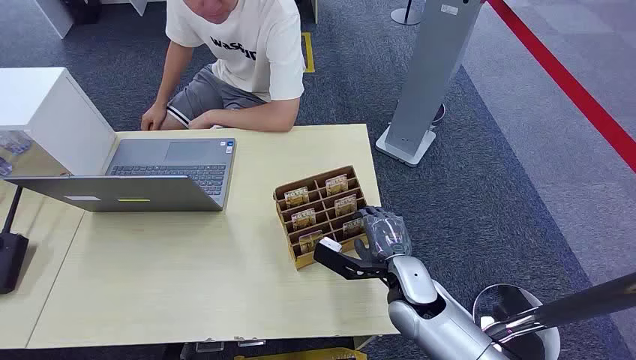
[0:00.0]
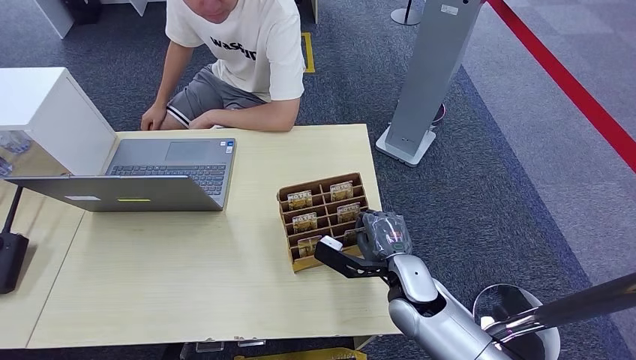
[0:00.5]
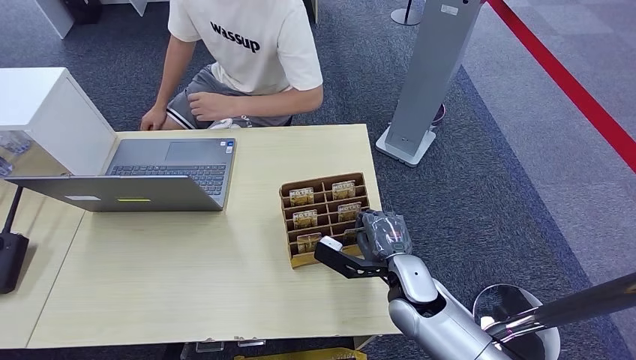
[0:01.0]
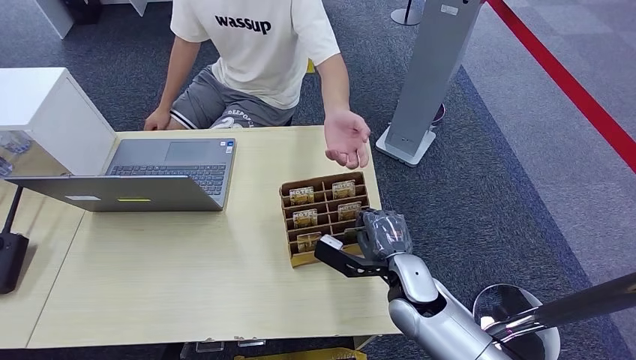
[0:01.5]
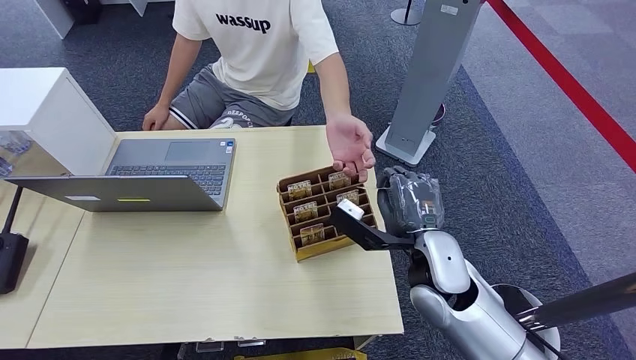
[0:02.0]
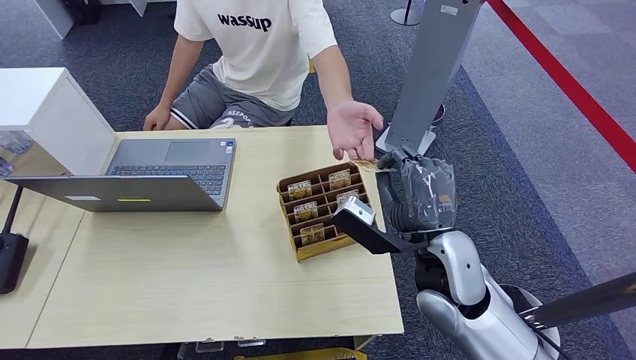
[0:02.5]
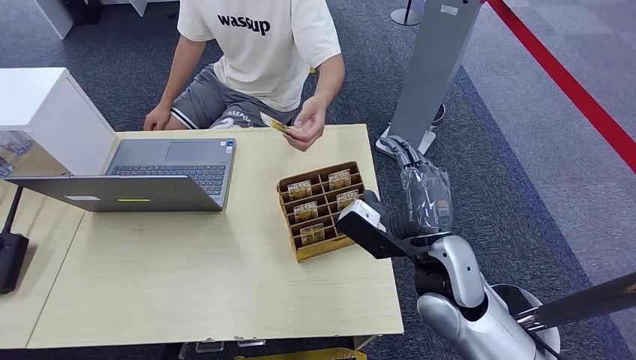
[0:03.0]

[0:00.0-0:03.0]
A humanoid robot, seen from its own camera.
Step, 0:00.0 to 0:01.5: Pick up the room card from the card holder.
Step, 0:02.5 to 0:03.0: Hand the room card to the target.
0:01.5 to 0:03.0: The right hand heads upward, covering some 10 cm.
